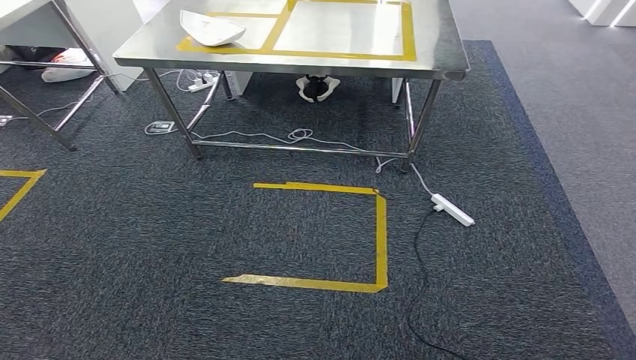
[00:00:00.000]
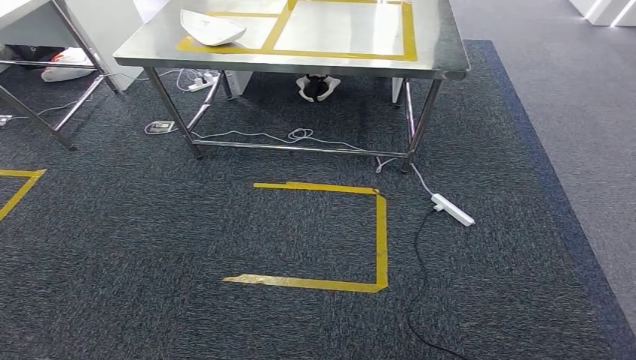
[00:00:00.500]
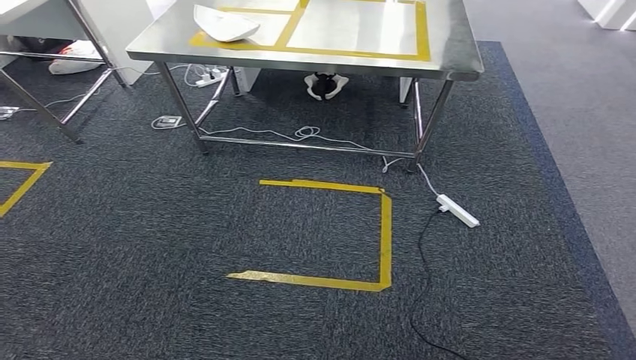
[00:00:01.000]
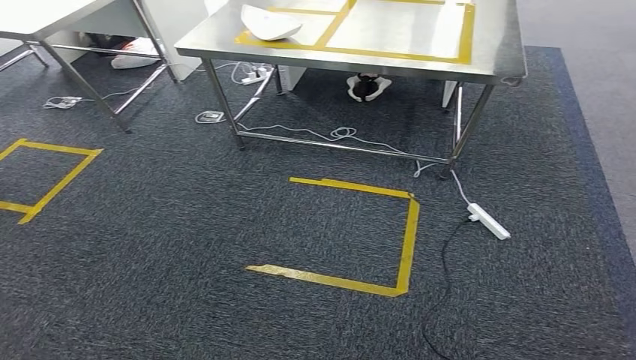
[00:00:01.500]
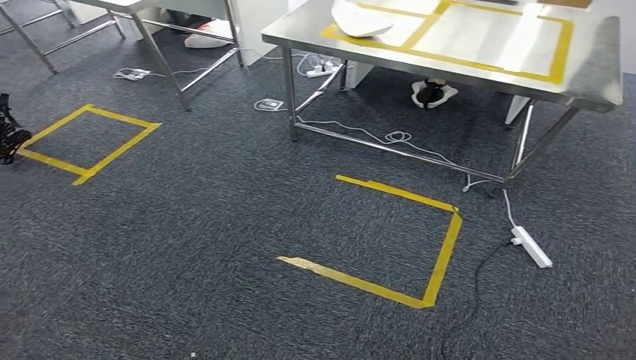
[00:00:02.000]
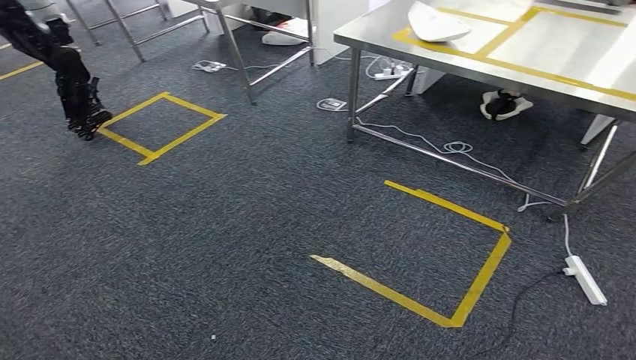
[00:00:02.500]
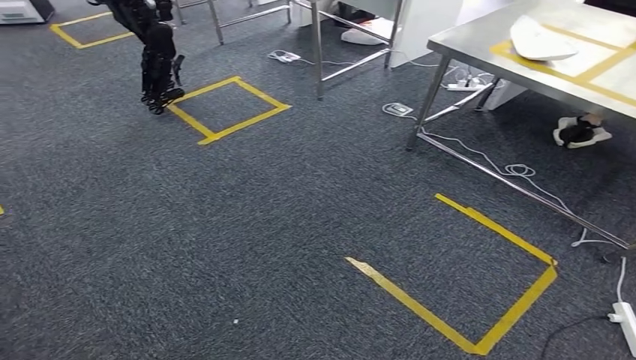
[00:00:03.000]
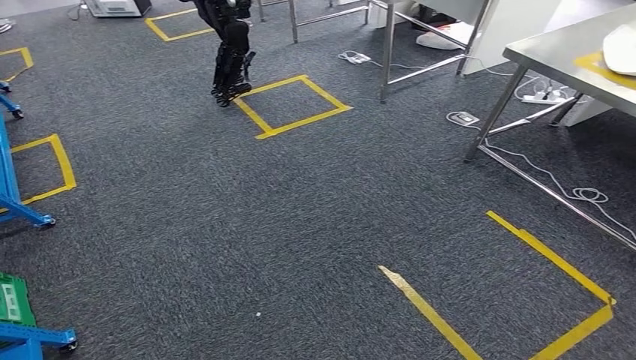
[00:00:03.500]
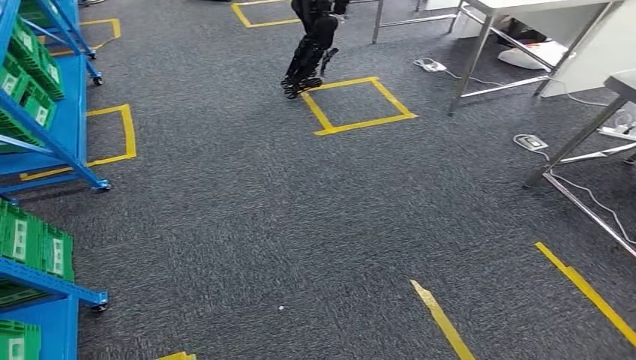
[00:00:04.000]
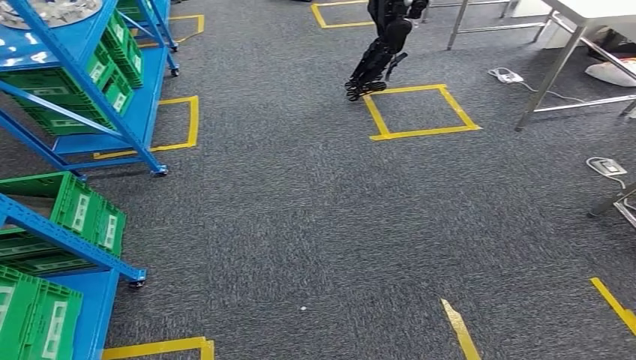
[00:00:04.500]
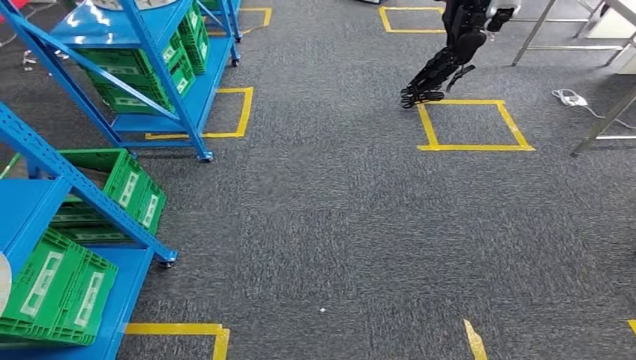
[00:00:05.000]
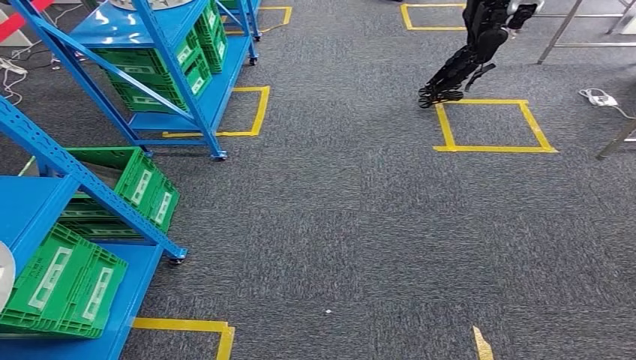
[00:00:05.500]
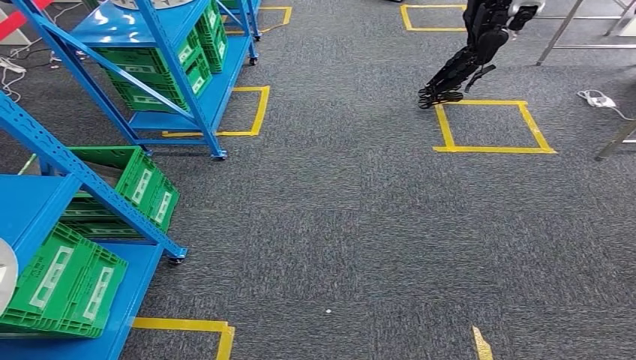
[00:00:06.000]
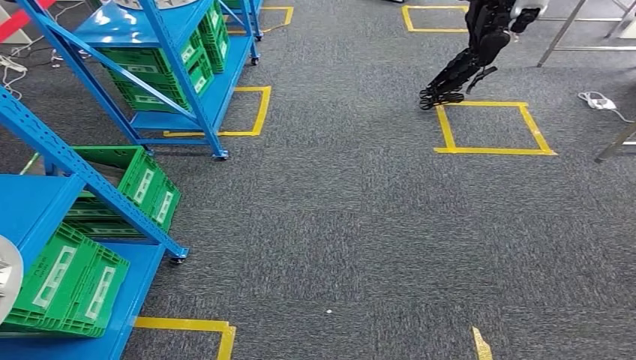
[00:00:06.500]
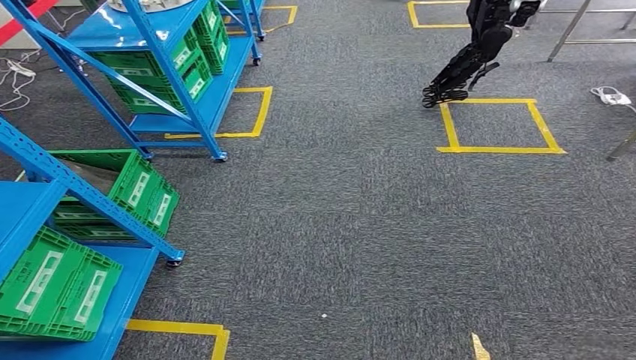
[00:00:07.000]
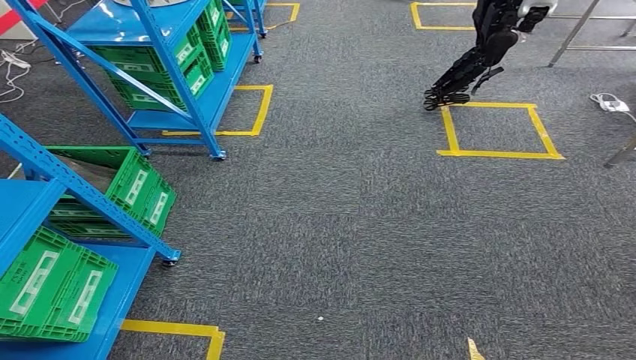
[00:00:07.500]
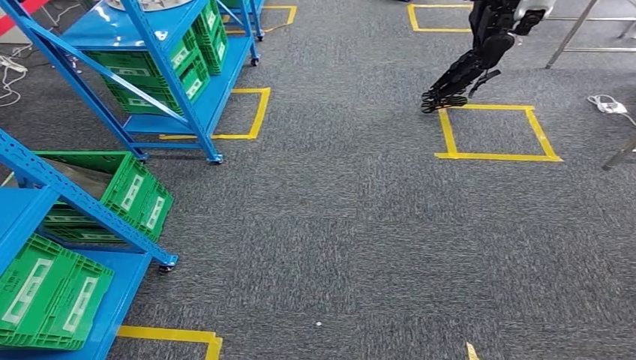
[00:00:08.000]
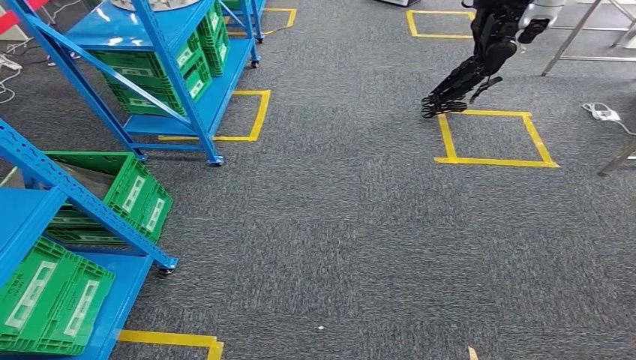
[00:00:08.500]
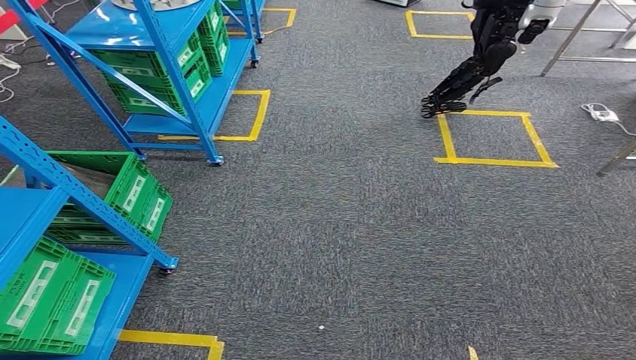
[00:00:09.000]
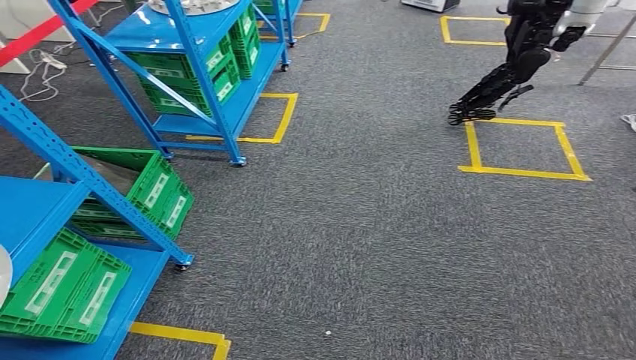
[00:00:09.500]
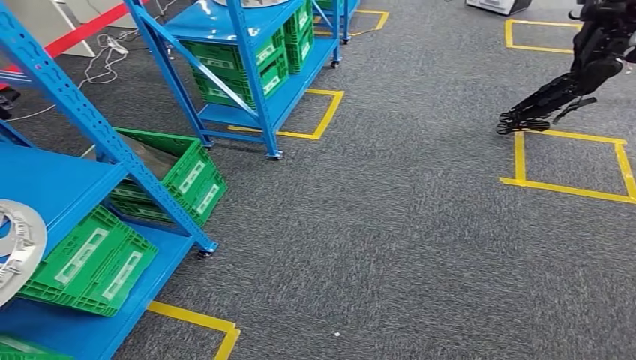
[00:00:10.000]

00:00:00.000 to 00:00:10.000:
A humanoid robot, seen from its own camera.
00:00:06.000 to 00:00:08.000: Neither hand changes place.

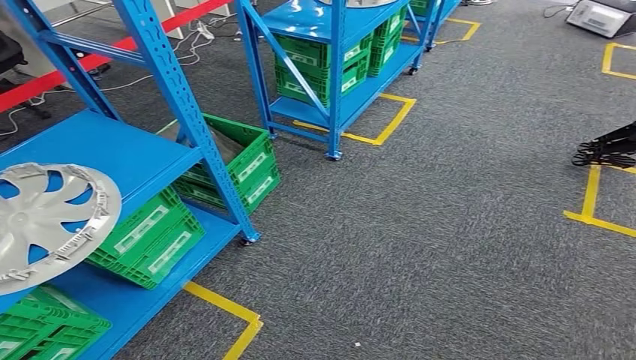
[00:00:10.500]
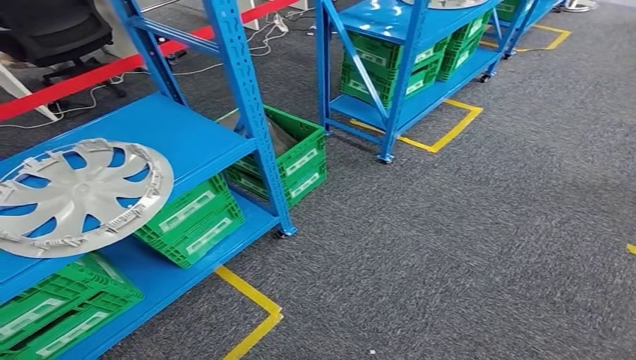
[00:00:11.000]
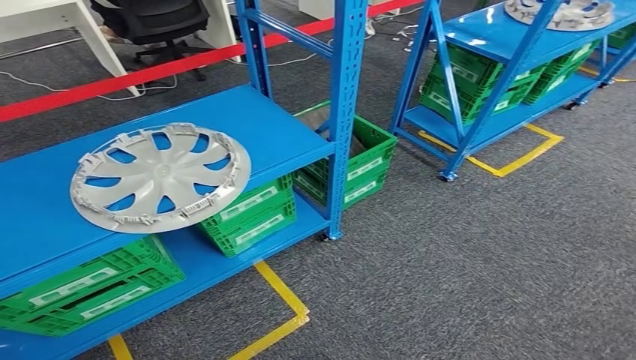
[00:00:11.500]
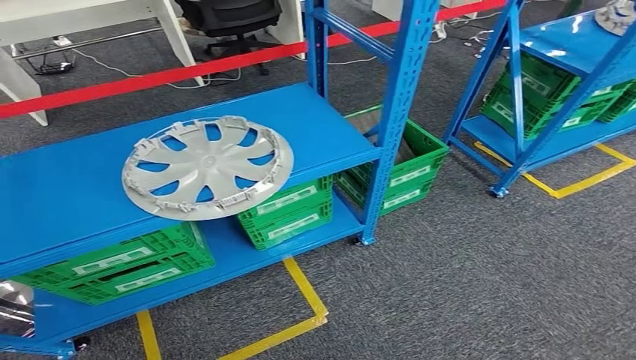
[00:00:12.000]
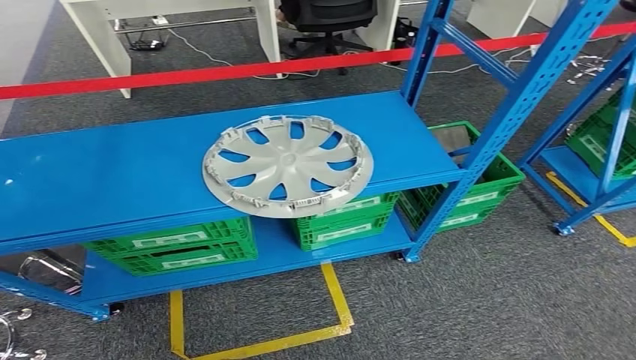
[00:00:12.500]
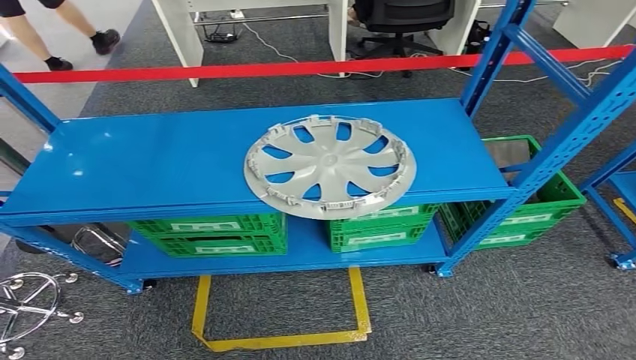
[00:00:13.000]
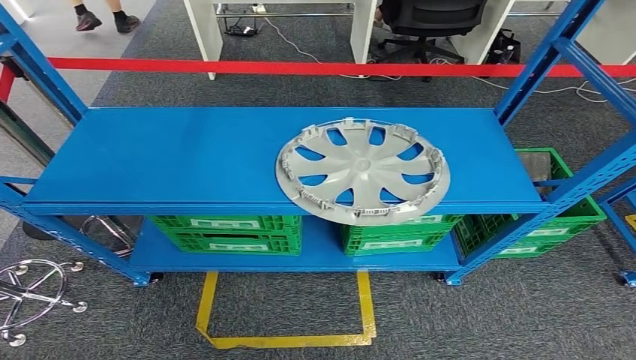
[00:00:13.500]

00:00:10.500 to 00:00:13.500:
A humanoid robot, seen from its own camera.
Step, 00:00:10.500 to 00:00:13.500: Move to the initial position at the workbench.
